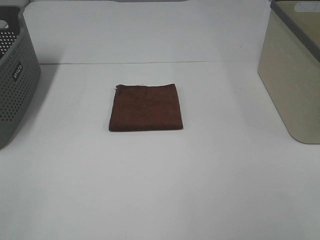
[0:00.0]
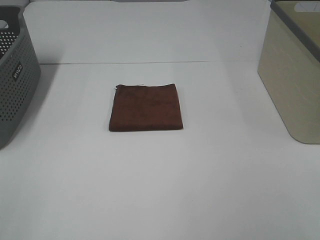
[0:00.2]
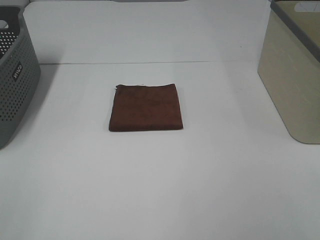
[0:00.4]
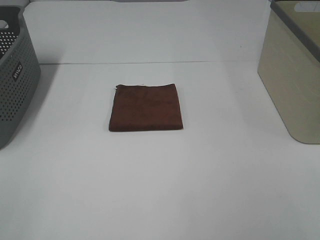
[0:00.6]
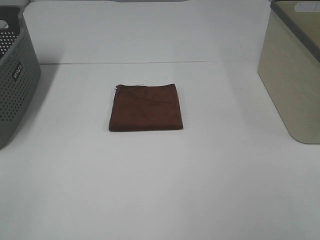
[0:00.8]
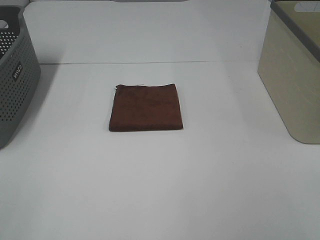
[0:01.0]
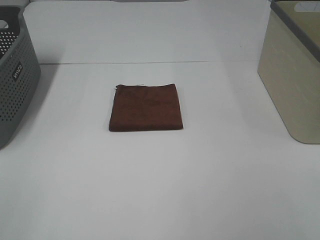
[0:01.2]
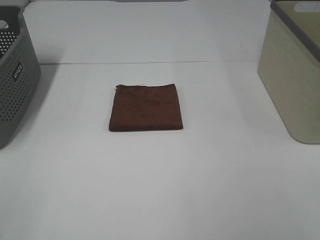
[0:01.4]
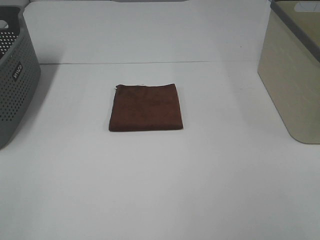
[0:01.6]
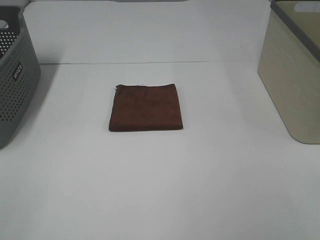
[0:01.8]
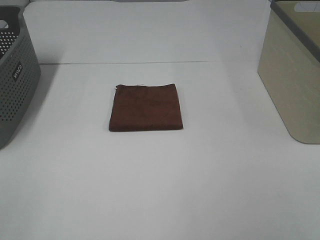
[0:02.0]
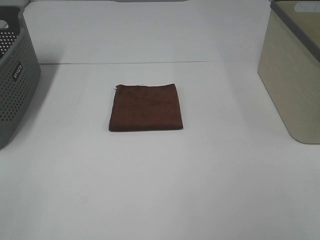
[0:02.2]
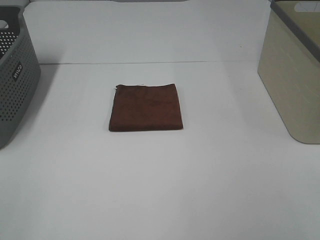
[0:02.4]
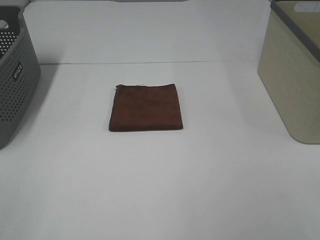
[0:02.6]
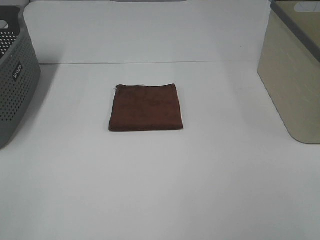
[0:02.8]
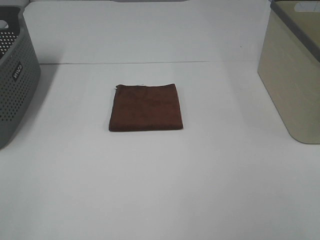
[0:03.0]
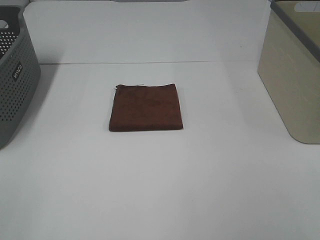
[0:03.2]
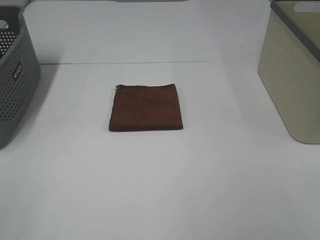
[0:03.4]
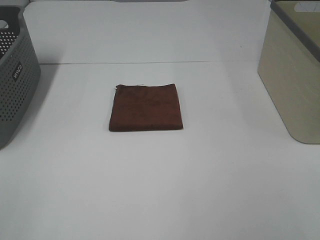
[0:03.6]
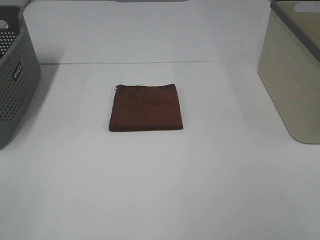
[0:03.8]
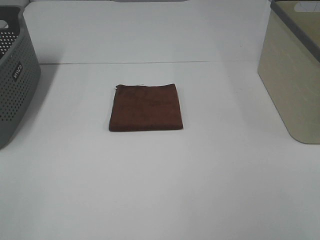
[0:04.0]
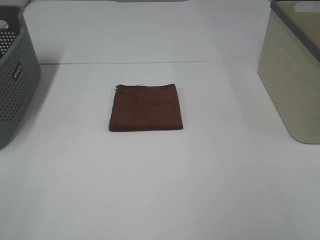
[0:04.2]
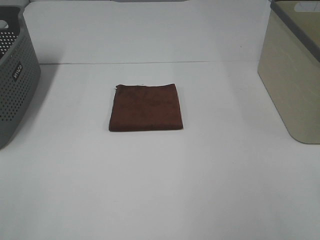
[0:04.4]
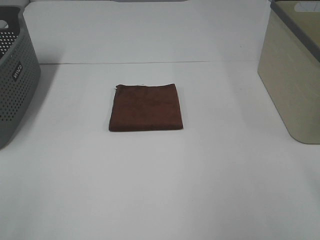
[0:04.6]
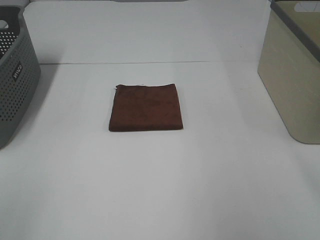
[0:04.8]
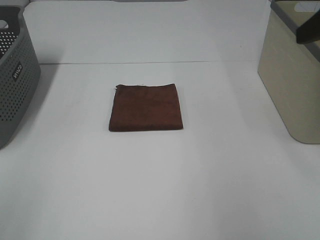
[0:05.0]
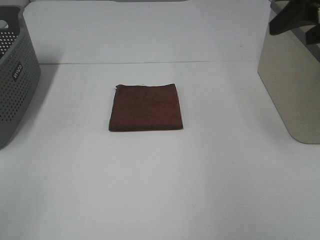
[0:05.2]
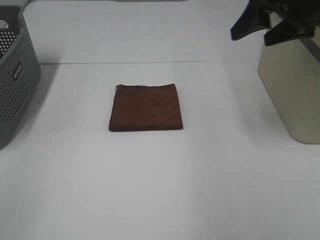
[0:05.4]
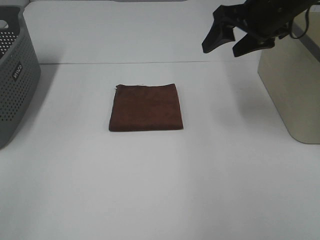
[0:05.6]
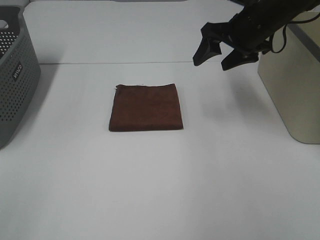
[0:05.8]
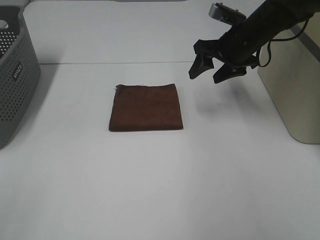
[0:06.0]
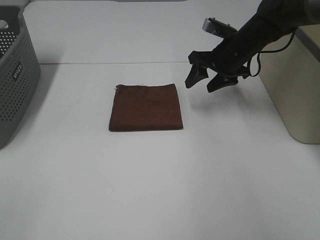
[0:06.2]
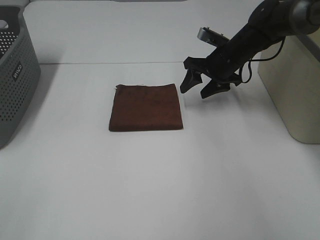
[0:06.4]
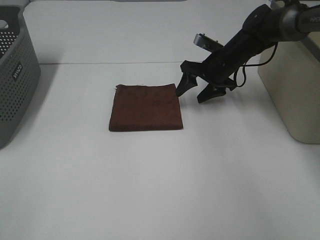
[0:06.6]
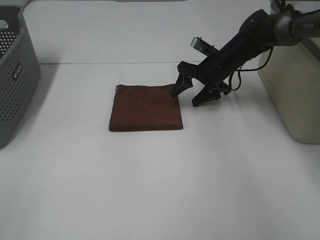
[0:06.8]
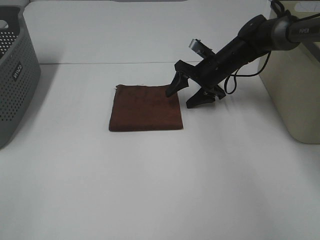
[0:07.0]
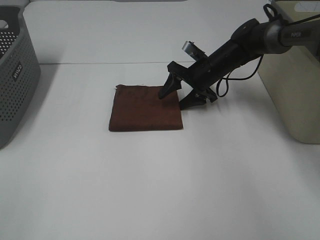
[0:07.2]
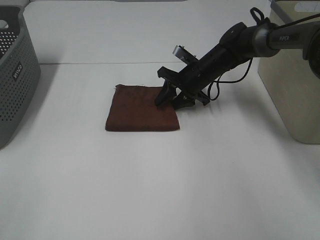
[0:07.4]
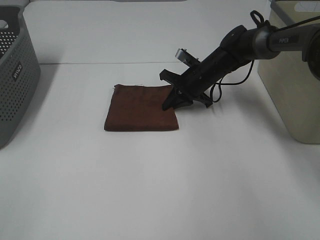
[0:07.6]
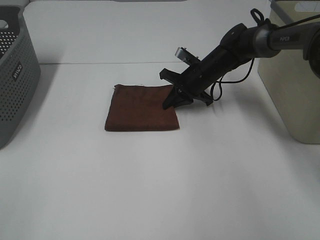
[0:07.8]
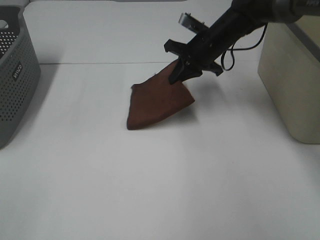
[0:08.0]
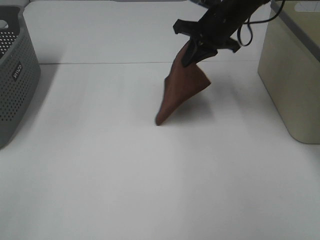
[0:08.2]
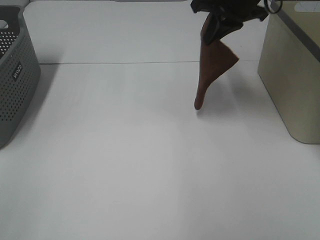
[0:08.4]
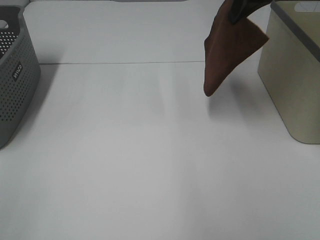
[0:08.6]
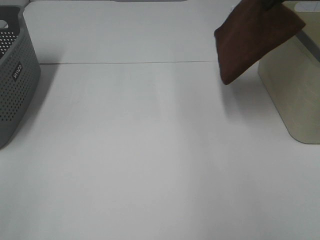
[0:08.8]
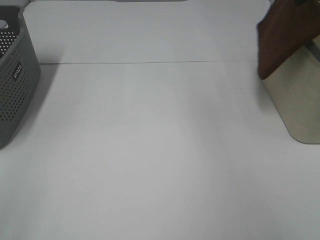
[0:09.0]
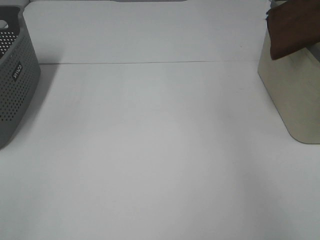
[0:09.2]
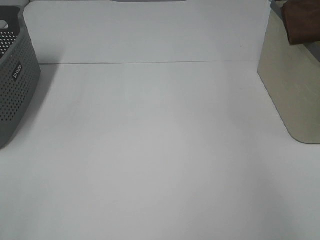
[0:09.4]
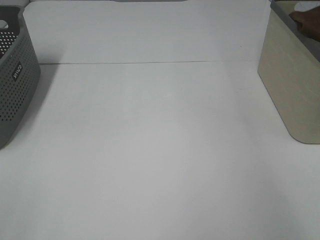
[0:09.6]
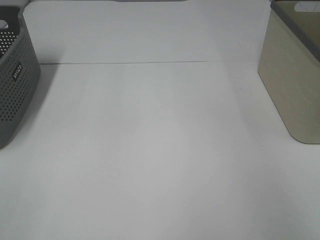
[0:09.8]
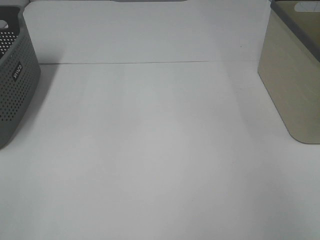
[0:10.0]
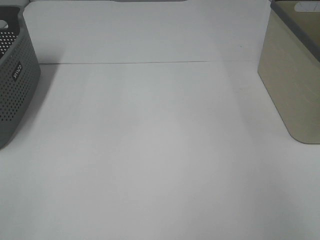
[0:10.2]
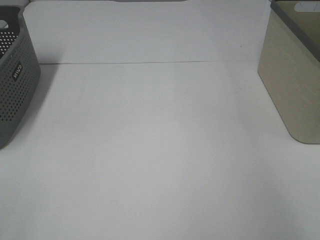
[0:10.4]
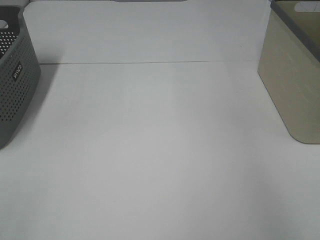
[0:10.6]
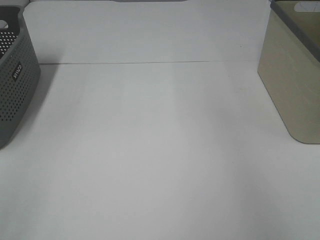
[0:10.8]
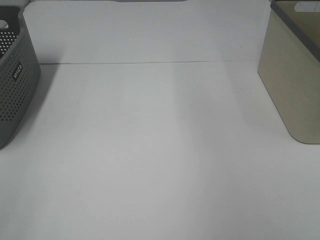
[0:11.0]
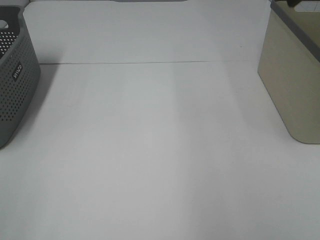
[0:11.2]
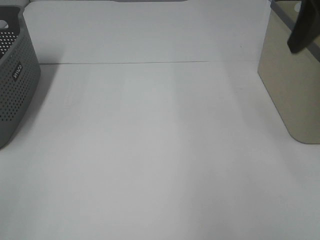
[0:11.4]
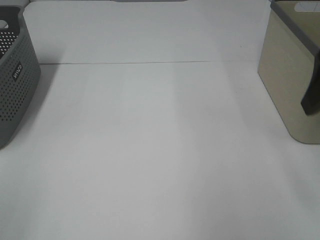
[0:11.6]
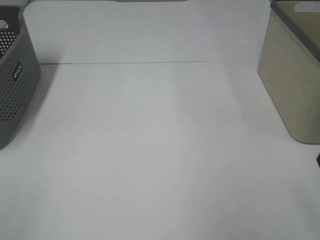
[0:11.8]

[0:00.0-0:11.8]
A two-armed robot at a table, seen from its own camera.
Step, 0:00.0 to 0:07.6: Right hand: grab the folded brown towel.
Step, 0:07.8 to 0:10.2: Right hand: place the brown towel in right basket.
0:00.0 to 0:03.0: Both grippers stay about where they are.
0:04.4 to 0:06.0: The right gripper goes some 40 cm forward.
0:06.0 to 0:07.4: The right gripper shifts some 10 cm downward and to the left.
0:07.4 to 0:08.8: The right gripper moves upward and to the right, roughly 30 cm, and closes.
0:08.8 to 0:10.4: The right gripper moves to the right, approximately 15 cm, and opens up.

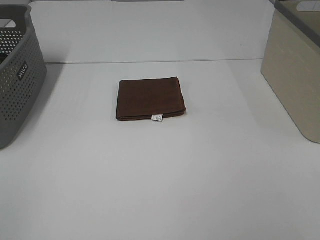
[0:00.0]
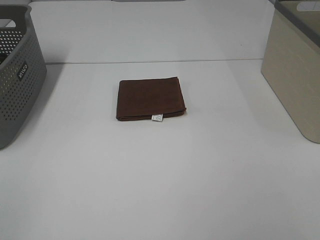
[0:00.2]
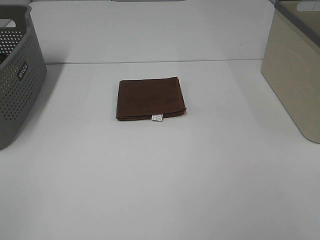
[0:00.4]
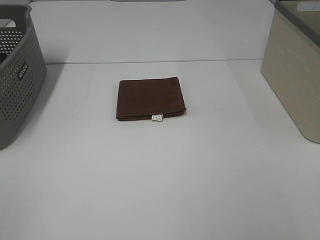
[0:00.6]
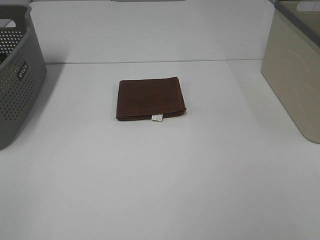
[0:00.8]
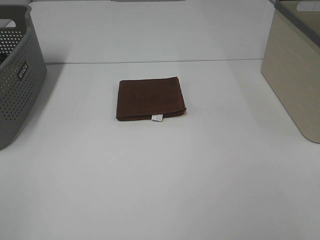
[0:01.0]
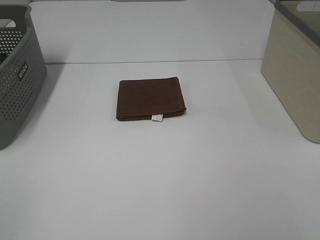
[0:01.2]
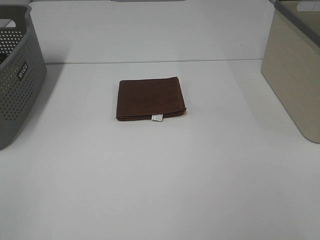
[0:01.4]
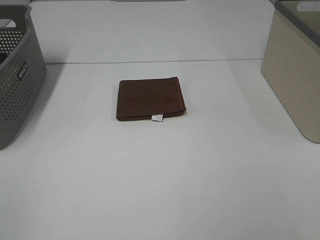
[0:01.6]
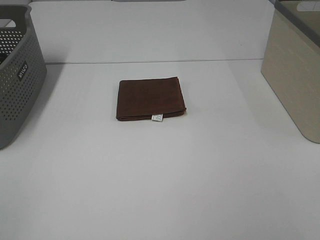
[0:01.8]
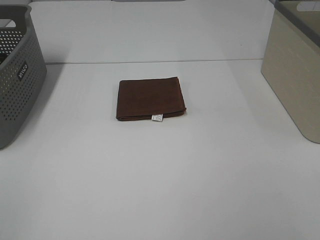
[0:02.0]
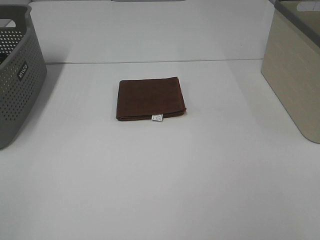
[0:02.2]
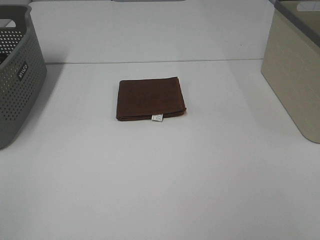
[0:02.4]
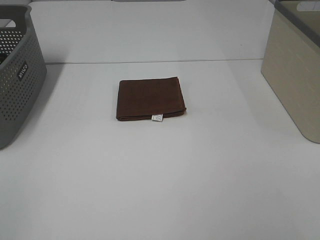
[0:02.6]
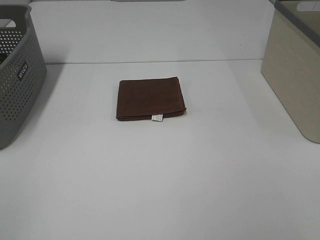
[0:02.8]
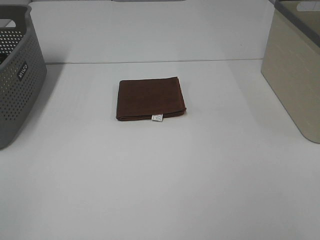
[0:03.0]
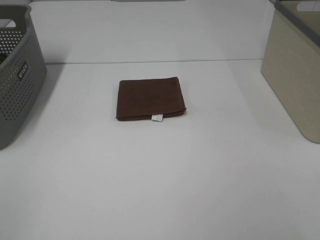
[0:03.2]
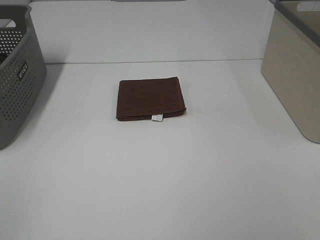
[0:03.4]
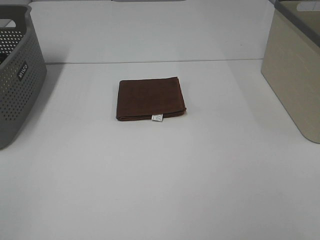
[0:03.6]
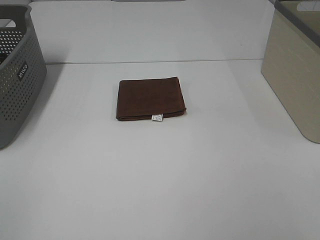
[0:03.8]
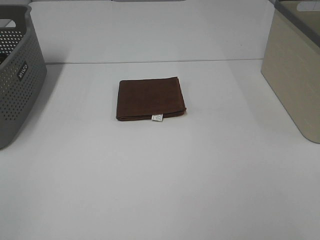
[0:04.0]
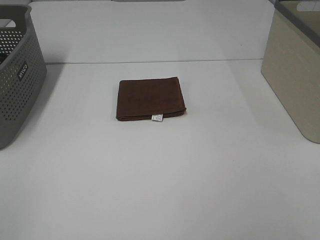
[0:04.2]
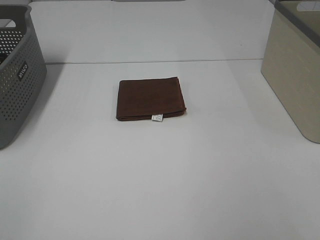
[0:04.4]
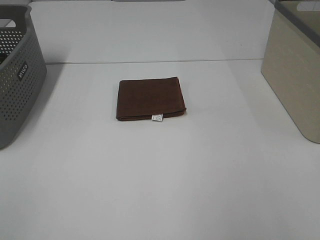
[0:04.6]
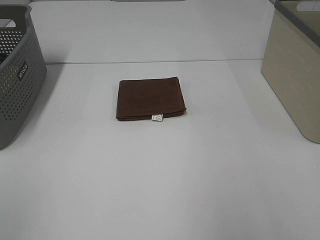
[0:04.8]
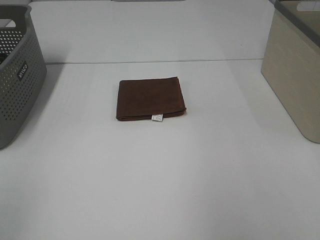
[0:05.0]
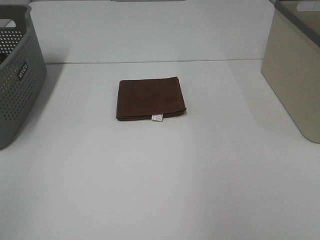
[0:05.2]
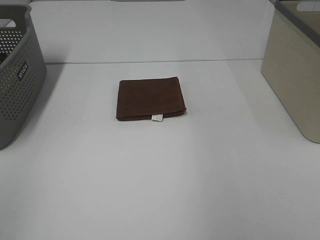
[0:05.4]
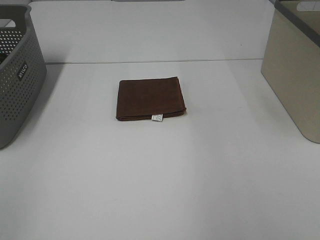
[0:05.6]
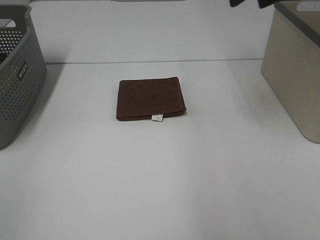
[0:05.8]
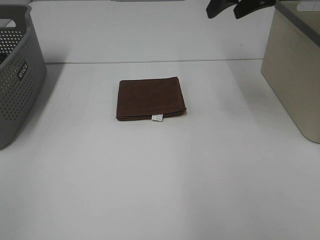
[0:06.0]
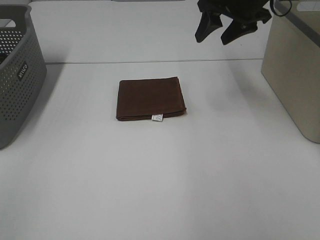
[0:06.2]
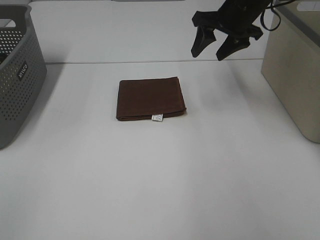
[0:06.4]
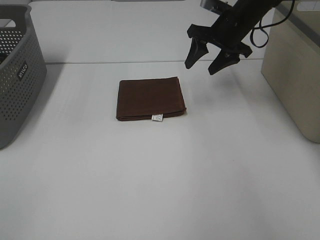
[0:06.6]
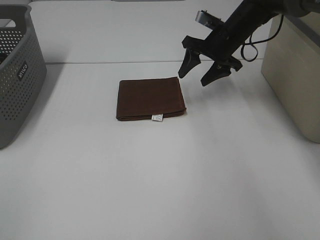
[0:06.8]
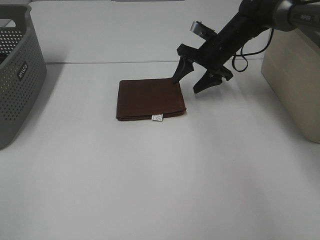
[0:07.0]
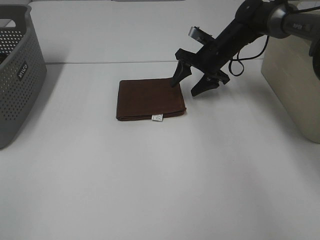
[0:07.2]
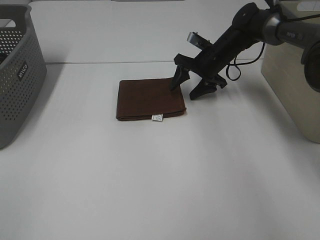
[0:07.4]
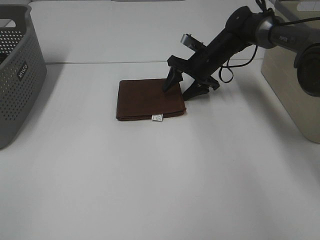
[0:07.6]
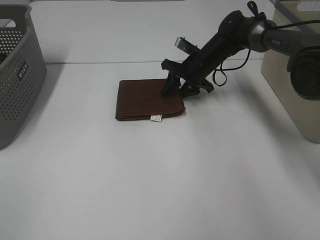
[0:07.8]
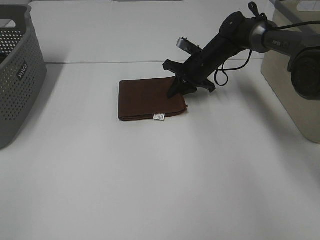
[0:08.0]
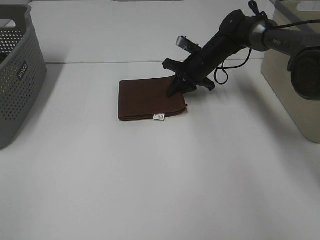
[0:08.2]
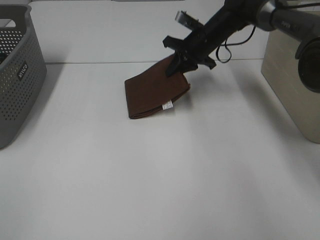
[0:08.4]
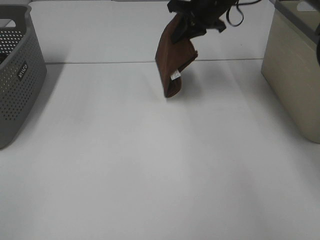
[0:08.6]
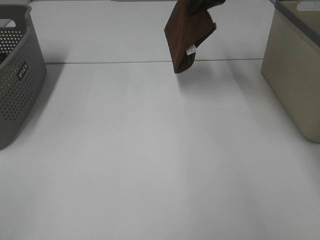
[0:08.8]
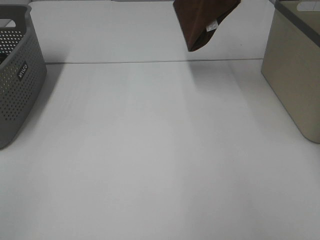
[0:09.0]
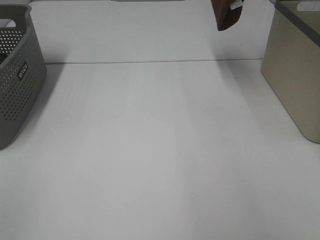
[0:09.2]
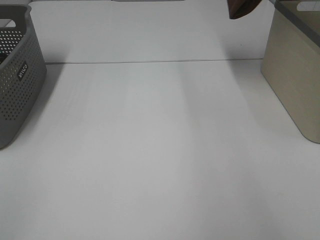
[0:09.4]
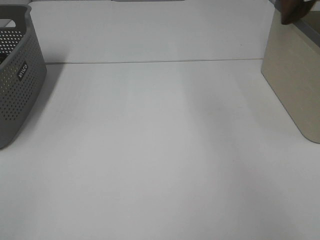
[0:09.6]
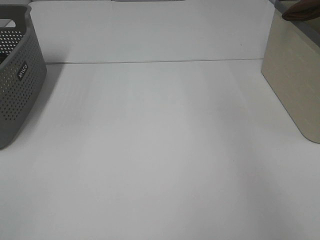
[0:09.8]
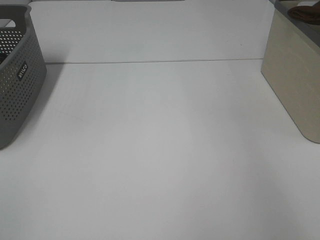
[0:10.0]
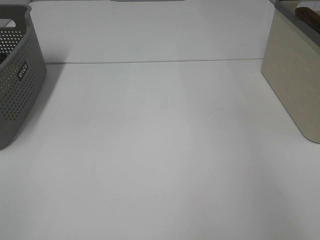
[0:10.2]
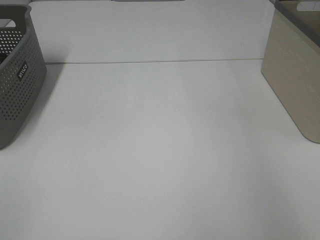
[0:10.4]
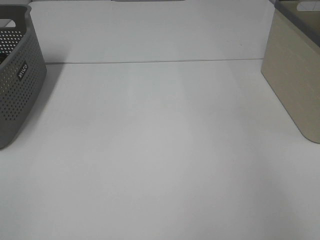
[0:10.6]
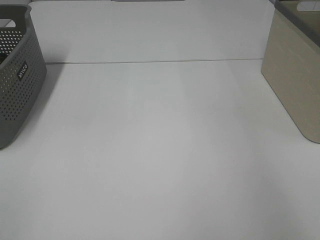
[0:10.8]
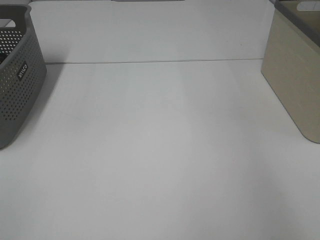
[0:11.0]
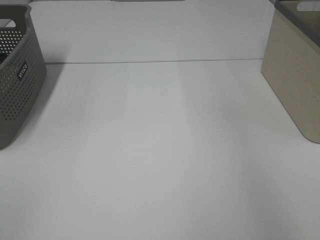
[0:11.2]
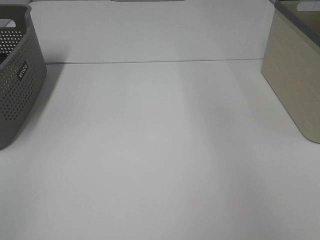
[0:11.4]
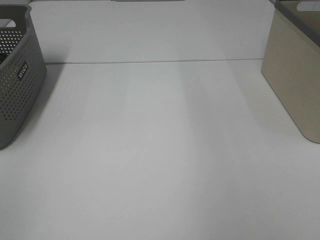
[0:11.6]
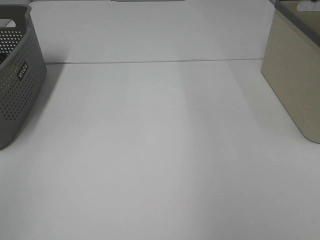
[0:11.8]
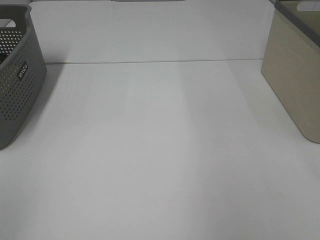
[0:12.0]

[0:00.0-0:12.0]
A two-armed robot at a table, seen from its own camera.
Step, 0:00.0 to 0:08.0: Right hand: grab the folded brown towel.
Step, 0:08.2 to 0:10.6: Right hand: place the brown towel in right basket.
0:00.0 to 0:03.0: Both grippers stay about where they are.
0:04.4 to 0:06.0: The right gripper moves forward, roughly 40 cm.
0:06.0 to 0:07.6: The right gripper moves downward and forward, roughly 25 cm.
0:07.6 to 0:09.0: The right gripper is displaced upward by some 25 cm, and closes its fingers.
0:09.0 to 0:10.4: The right gripper goes roughly 25 cm to the right.
